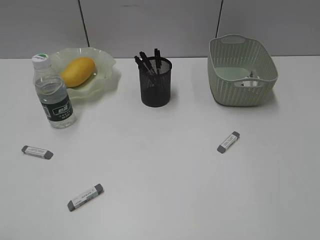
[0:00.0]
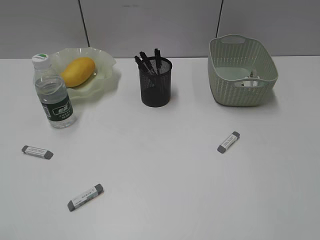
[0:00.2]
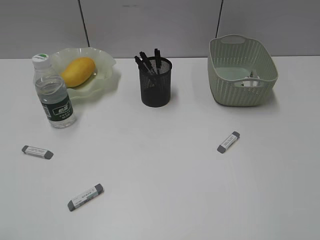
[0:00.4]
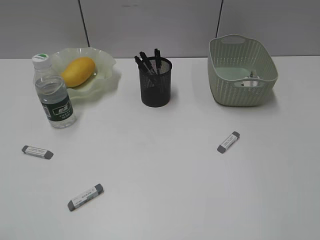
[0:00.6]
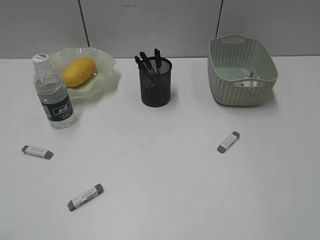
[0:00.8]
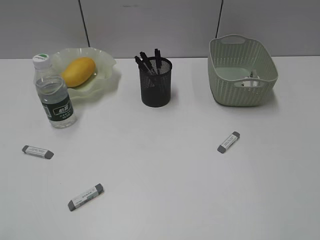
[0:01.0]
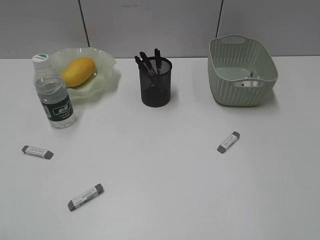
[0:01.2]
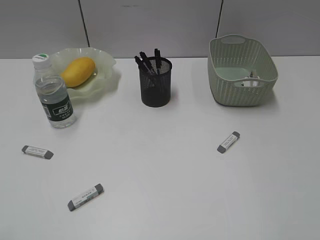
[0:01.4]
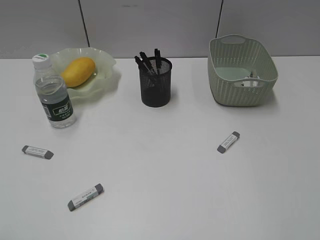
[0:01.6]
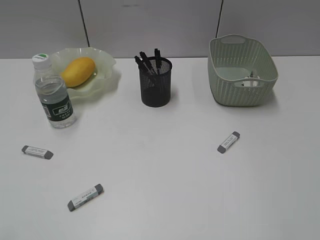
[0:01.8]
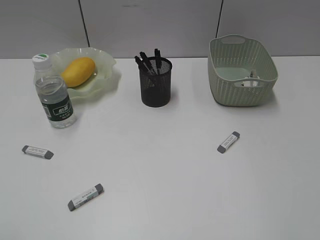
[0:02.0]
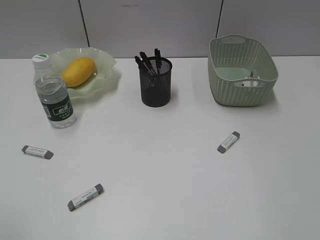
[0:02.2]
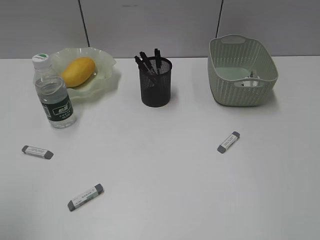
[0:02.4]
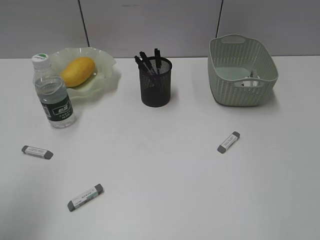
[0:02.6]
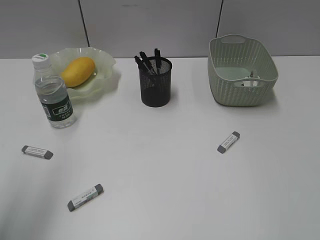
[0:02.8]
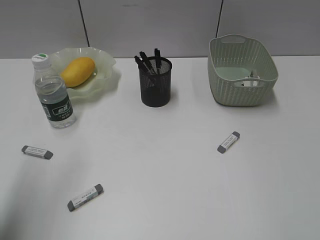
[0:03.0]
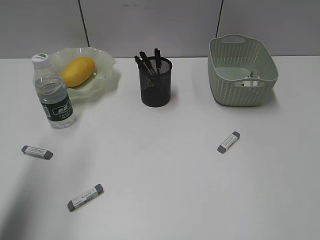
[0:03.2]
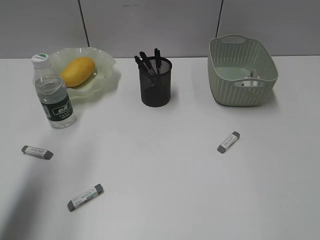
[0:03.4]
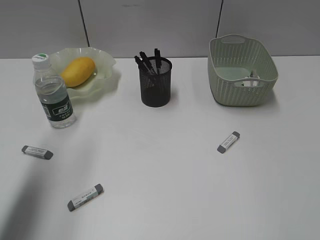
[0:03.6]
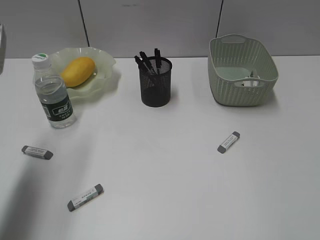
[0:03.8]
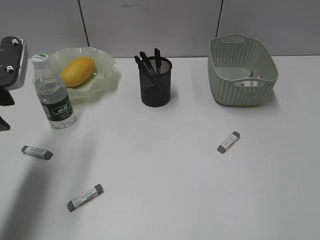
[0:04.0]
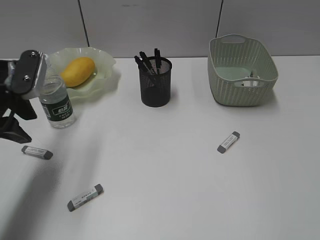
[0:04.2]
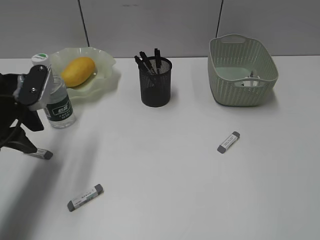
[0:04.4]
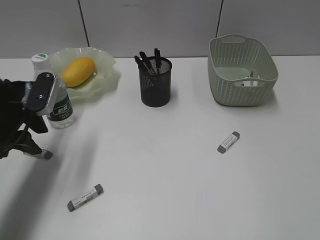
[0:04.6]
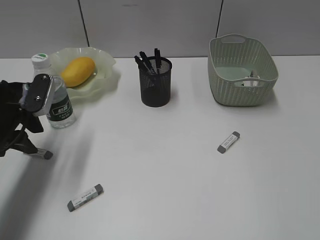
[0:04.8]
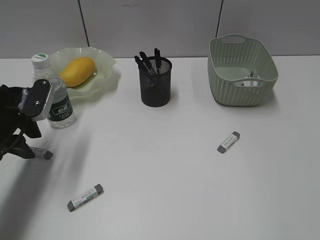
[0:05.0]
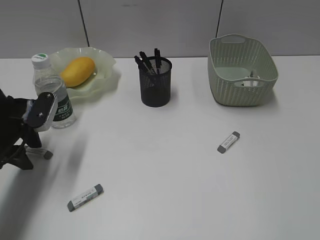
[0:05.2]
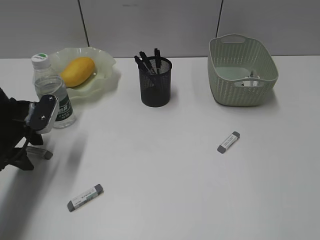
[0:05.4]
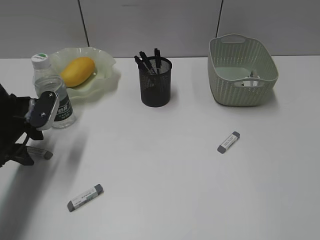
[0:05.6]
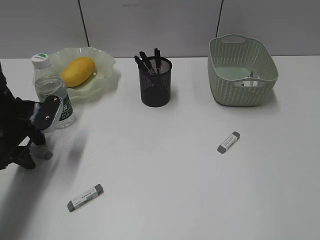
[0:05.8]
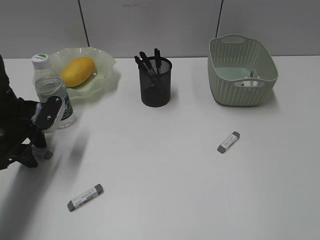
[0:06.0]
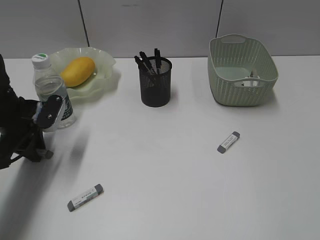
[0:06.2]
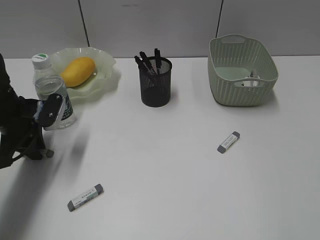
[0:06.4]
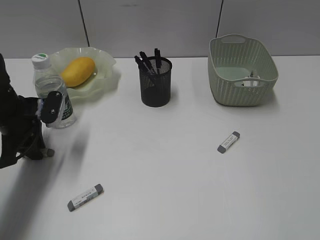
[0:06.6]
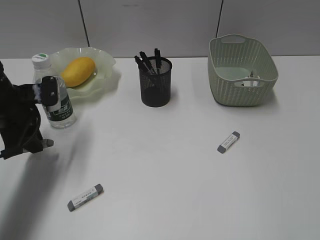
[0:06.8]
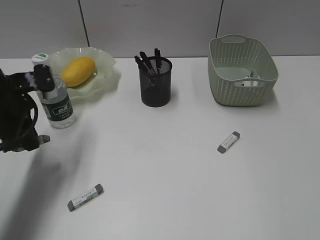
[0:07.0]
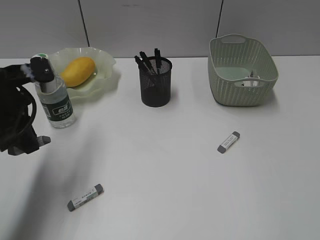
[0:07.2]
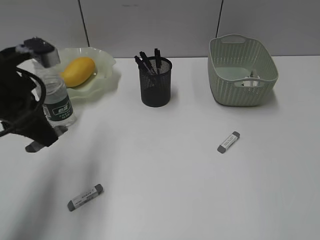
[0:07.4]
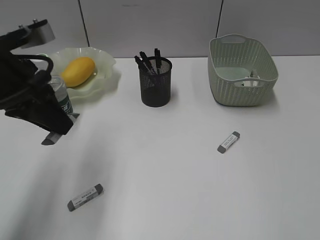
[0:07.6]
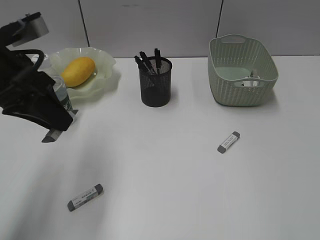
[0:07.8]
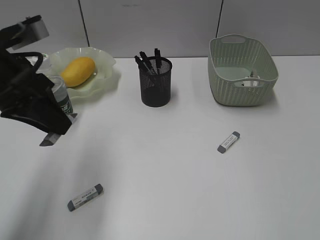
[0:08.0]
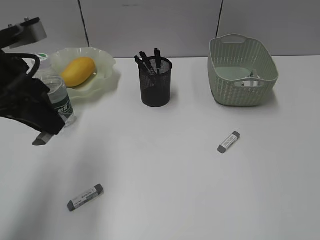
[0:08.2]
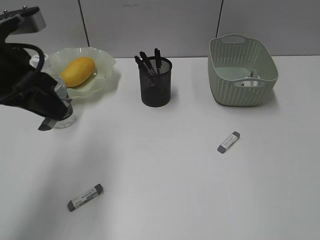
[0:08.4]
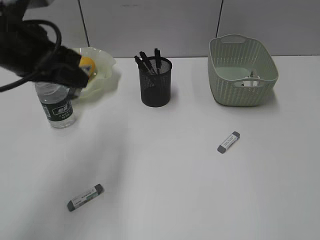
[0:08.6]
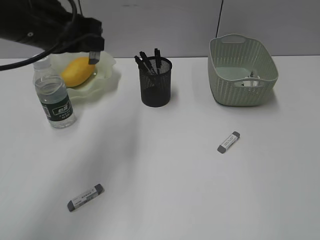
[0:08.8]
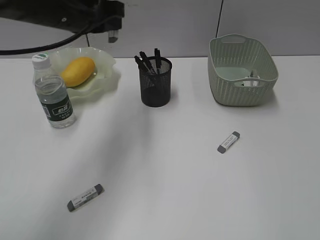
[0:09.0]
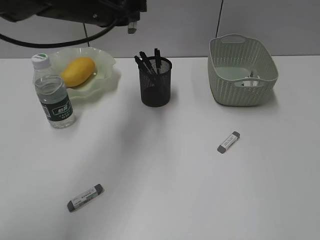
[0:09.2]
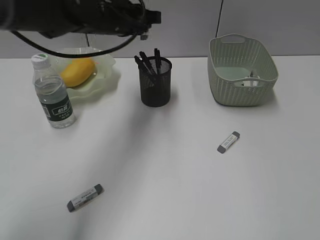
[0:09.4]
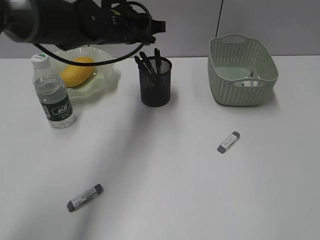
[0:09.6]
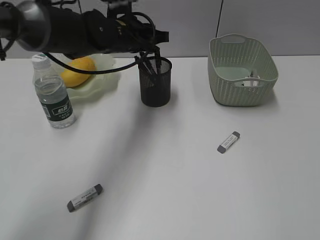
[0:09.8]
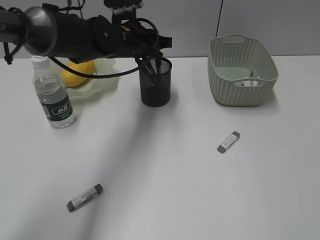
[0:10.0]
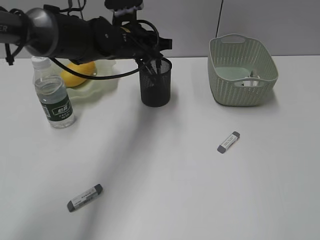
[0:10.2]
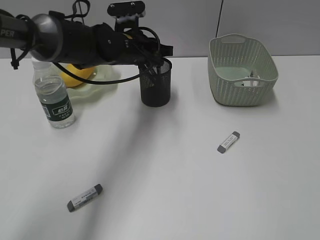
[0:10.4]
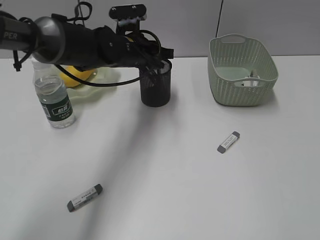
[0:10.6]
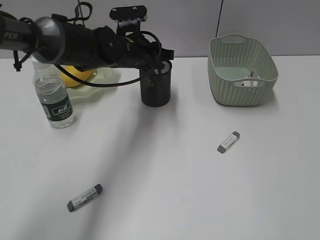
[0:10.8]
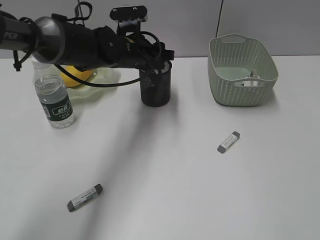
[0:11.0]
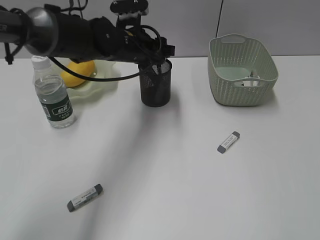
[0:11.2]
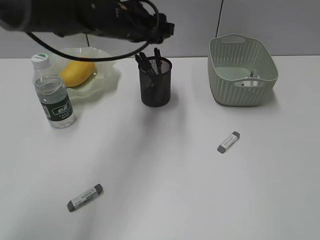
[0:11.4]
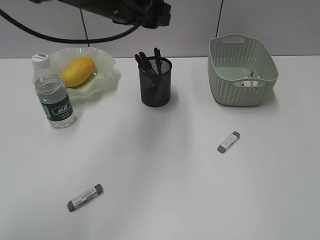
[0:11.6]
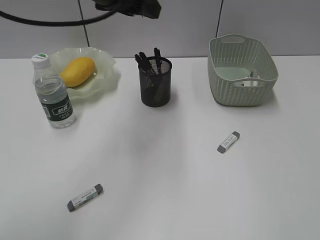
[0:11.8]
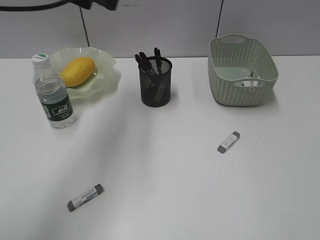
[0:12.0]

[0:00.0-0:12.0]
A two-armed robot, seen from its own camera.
Step, 0:00.0 to 0:06.2: Grasp the eraser with left gripper.
Step, 0:06.4 to 0:11.0: Place the eraser in pen holder with left gripper.
0:01.6 to 0:03.0: The left gripper is displaced forward by about 20 cm.
0:03.0 to 0:04.4: The left gripper moves downward and forward, about 15 cm.
0:04.4 to 0:06.0: The left gripper is displaced downward by approximately 10 cm.
0:06.0 to 0:07.6: The left gripper shifts approximately 15 cm upward, backward and to the right, and closes its fingers.
0:07.6 to 0:09.0: The left gripper shifts about 10 cm forward and to the right.
0:09.0 to 0:10.4: The left gripper moves downward, forward and to the right, roughly 15 cm.
0:10.4 to 0:12.0: The left gripper moves upward and to the left, roughly 20 cm, and opens its fingers.

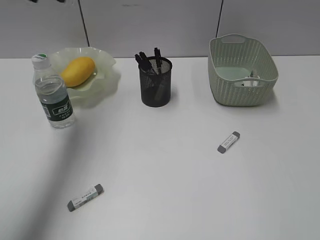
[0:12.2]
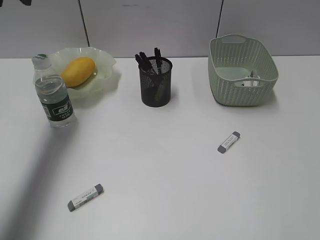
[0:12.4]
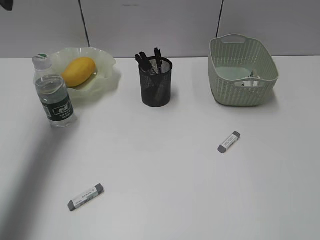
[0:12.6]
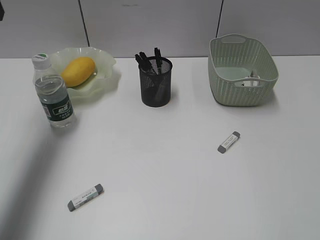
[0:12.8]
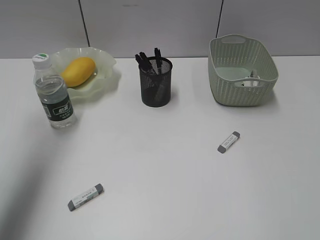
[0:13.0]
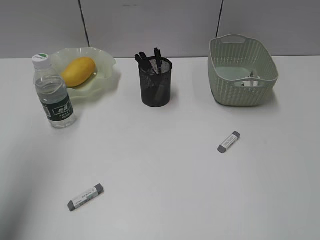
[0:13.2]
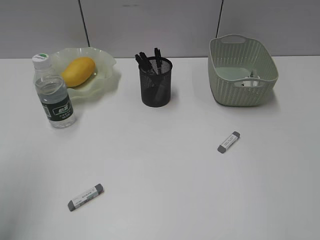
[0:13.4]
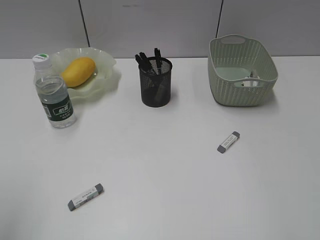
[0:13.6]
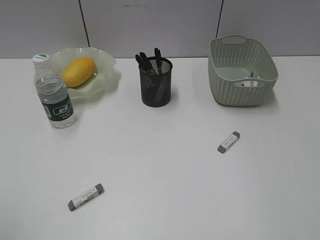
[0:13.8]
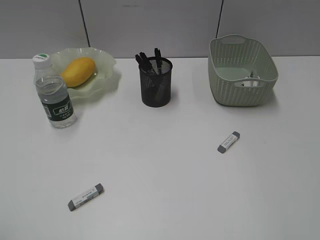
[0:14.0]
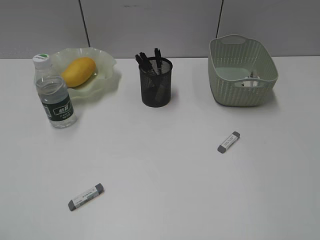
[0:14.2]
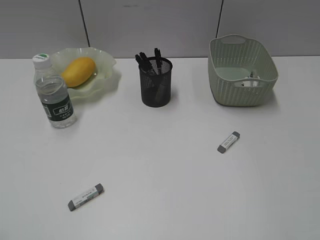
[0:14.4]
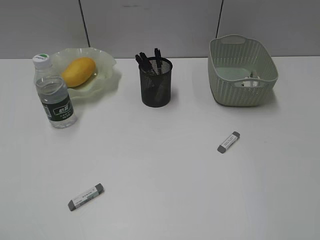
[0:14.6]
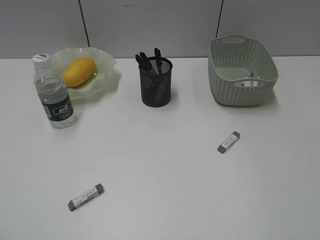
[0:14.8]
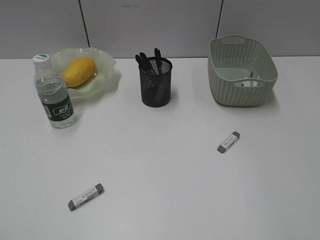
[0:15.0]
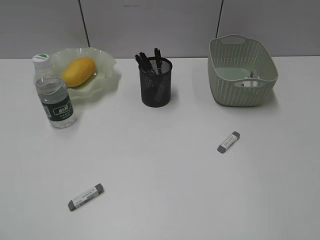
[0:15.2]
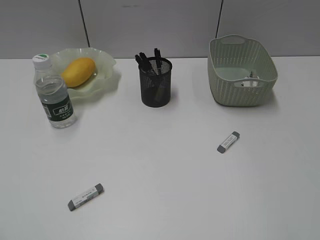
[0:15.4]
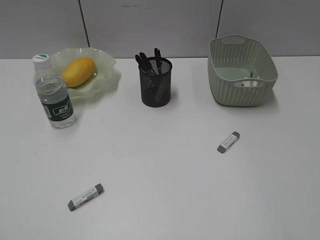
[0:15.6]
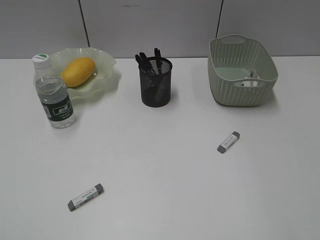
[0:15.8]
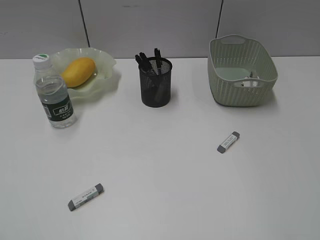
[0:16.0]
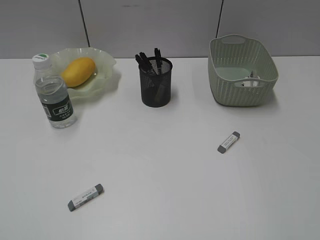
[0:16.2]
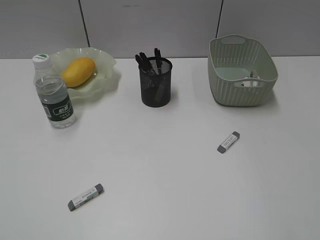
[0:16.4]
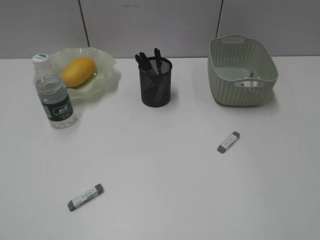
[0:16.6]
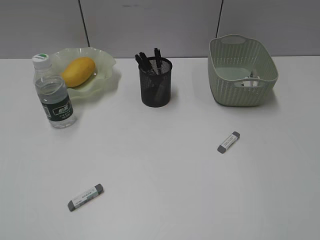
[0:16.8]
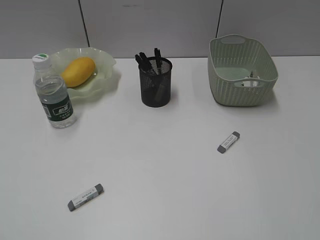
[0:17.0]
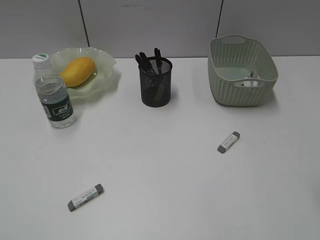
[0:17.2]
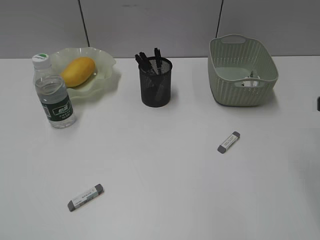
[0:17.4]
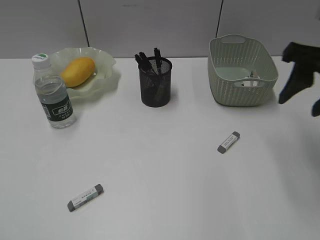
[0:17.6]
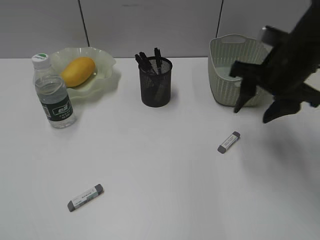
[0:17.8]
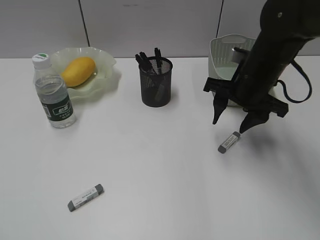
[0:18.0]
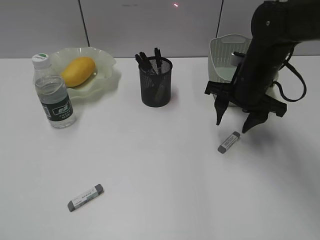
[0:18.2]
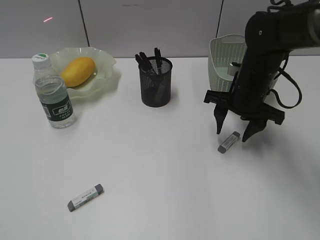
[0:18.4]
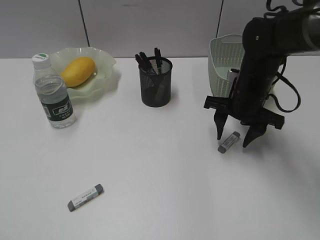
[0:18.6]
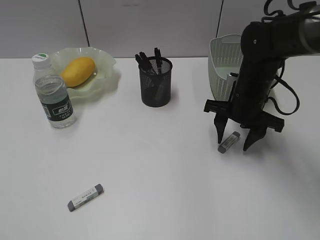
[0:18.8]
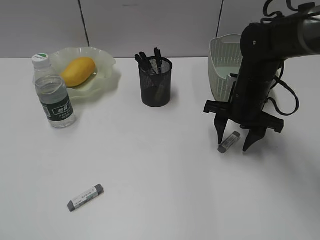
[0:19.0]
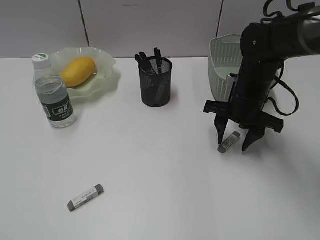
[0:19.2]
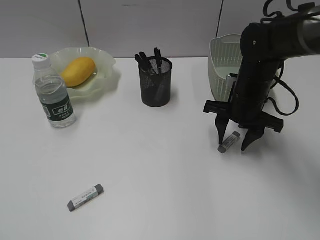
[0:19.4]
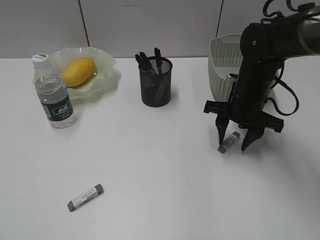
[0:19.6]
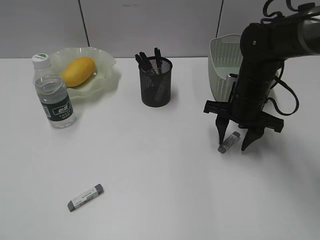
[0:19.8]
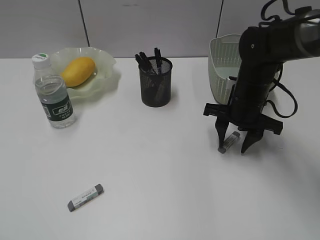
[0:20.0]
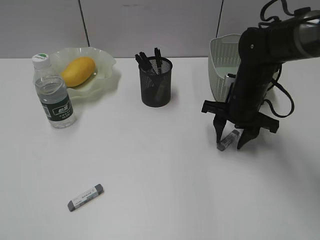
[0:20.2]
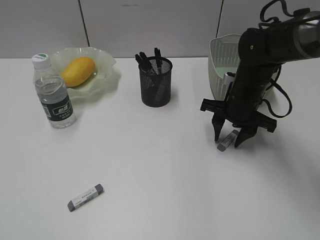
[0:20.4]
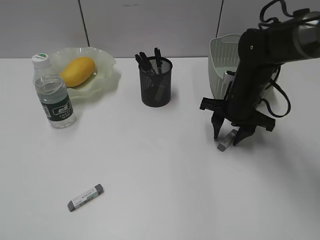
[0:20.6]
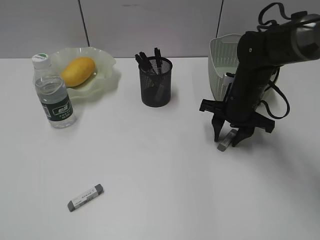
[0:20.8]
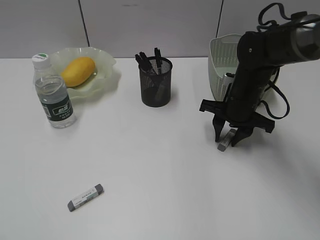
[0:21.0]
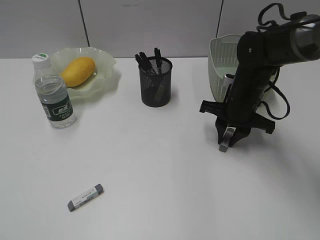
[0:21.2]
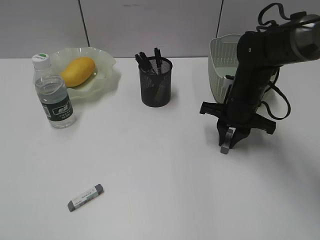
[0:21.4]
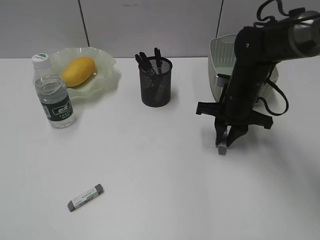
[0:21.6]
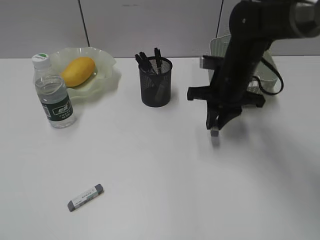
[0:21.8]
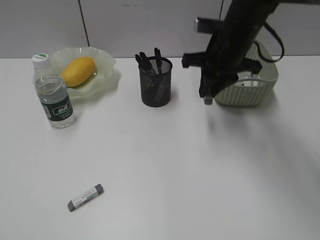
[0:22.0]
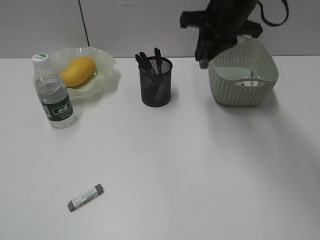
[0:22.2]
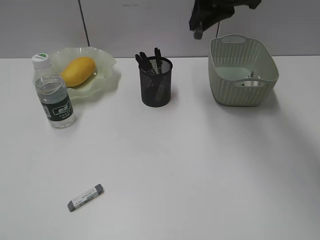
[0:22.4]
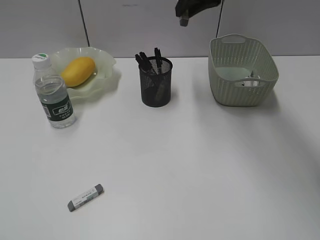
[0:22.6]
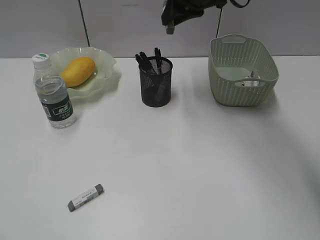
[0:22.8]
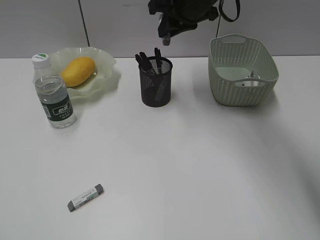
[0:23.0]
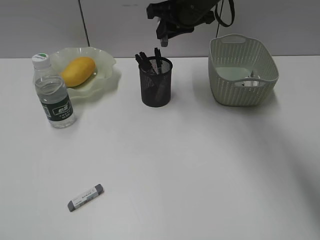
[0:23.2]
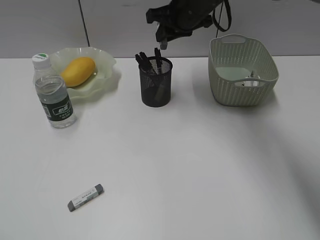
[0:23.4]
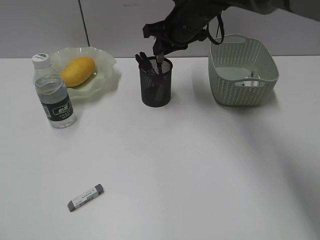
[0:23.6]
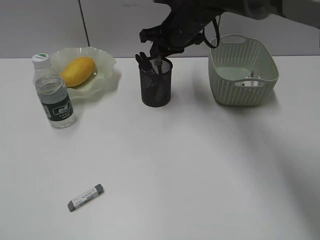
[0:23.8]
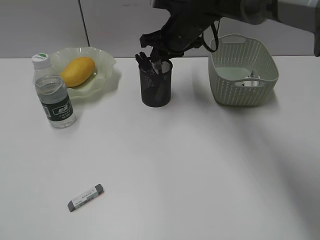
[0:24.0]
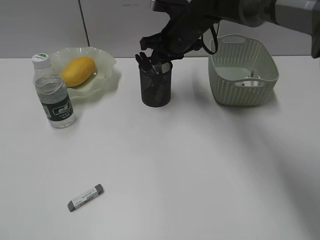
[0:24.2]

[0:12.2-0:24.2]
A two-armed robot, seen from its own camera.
Step, 0:12.2 to 0:21.4: Grasp the eraser with right gripper.
0:12.2 to 0:13.8: The left gripper moves backward, some 30 cm.
0:15.2 to 0:16.6: The two grippers keep their place.
0:16.6 to 0:18.2: The right gripper moves forward, approximately 35 cm.
0:18.2 to 0:21.2: The grippers stay close to where they were, moving slightly.
0:21.2 to 0:22.6: The right gripper moves upward, about 20 cm.
0:22.6 to 0:24.2: The right gripper shifts approximately 15 cm downward.
